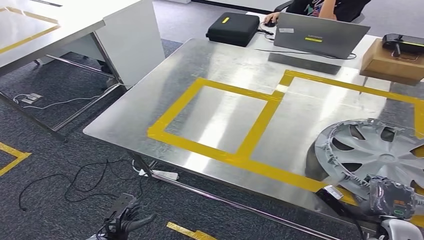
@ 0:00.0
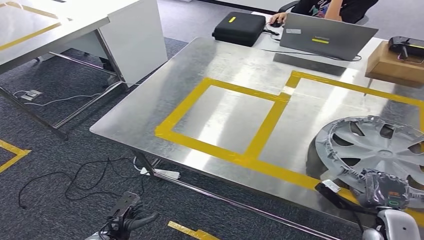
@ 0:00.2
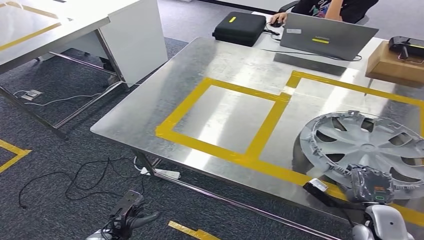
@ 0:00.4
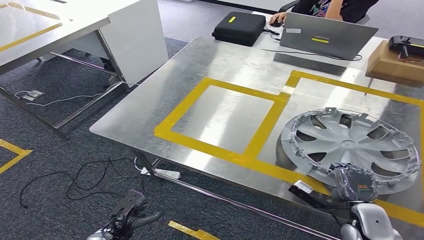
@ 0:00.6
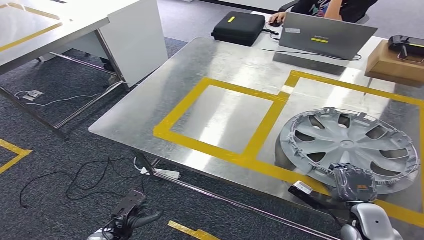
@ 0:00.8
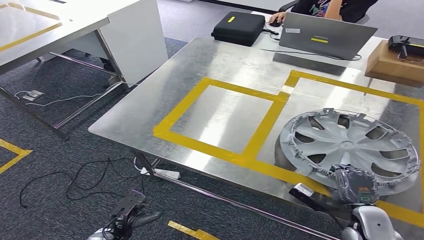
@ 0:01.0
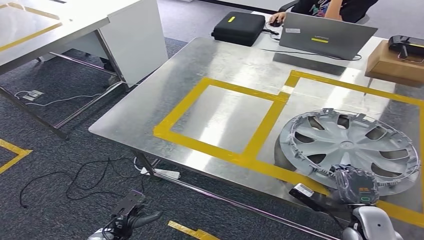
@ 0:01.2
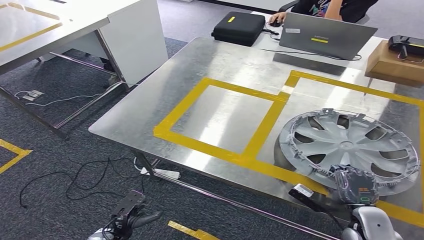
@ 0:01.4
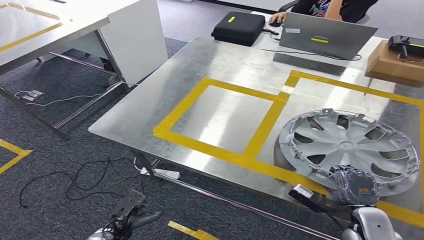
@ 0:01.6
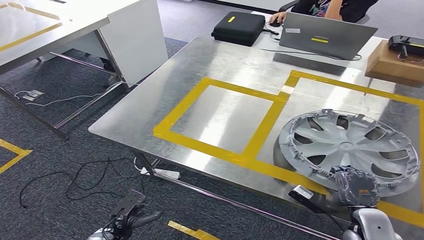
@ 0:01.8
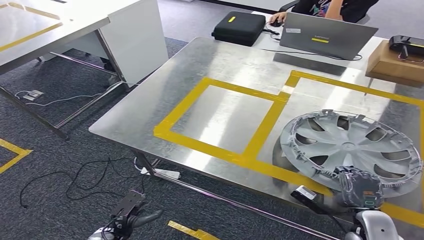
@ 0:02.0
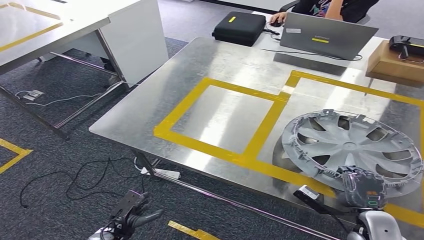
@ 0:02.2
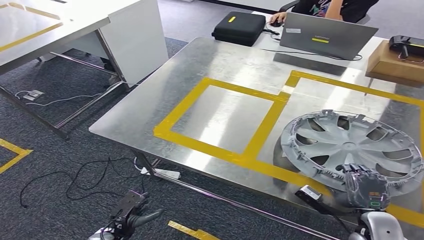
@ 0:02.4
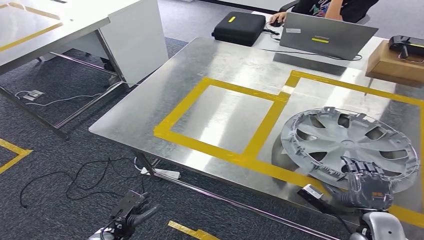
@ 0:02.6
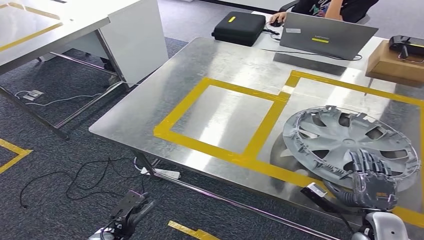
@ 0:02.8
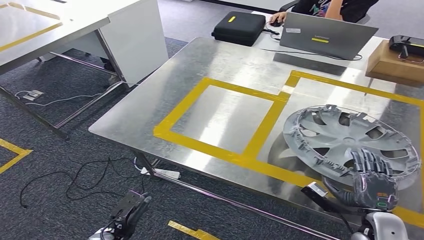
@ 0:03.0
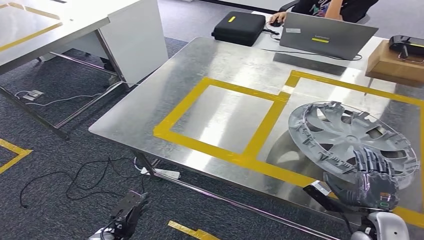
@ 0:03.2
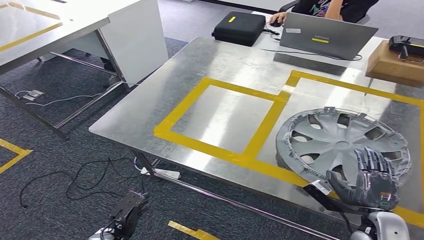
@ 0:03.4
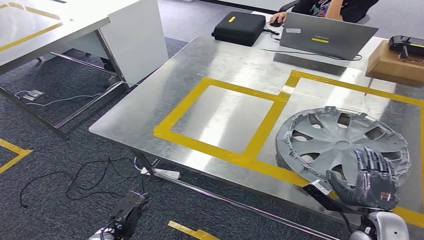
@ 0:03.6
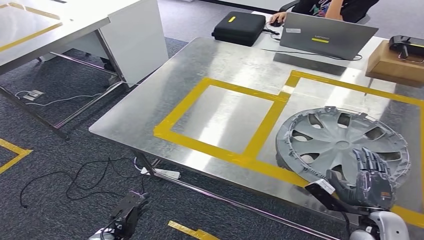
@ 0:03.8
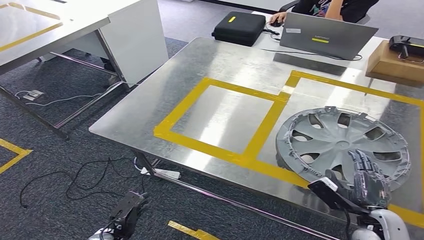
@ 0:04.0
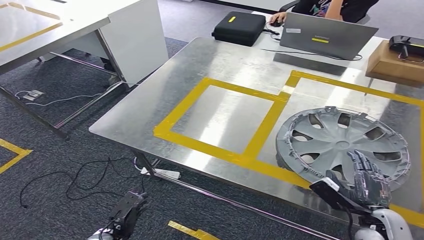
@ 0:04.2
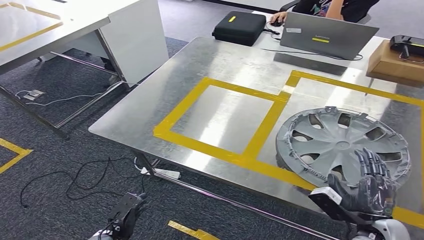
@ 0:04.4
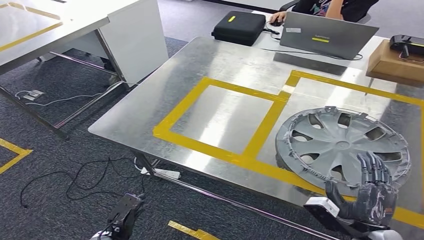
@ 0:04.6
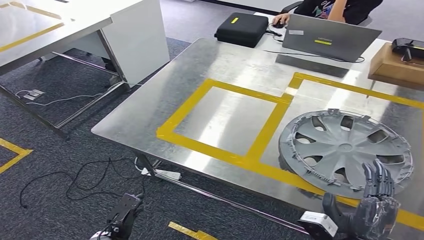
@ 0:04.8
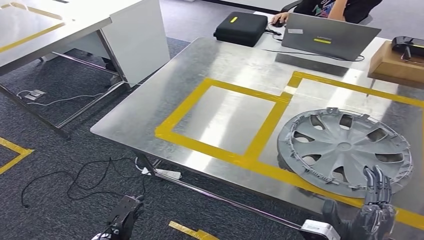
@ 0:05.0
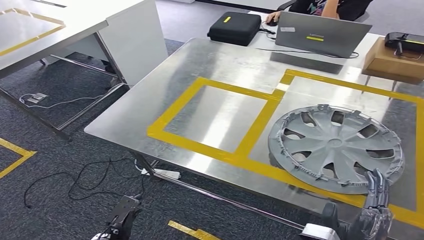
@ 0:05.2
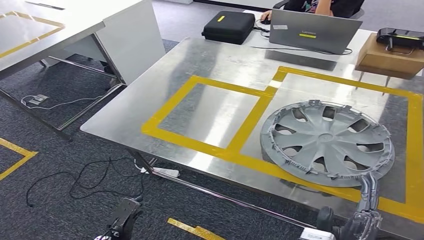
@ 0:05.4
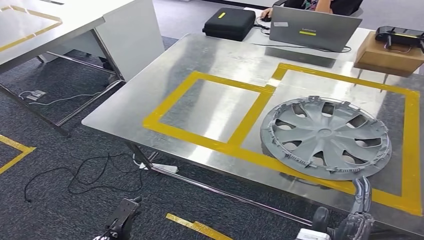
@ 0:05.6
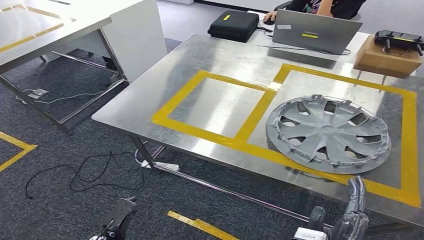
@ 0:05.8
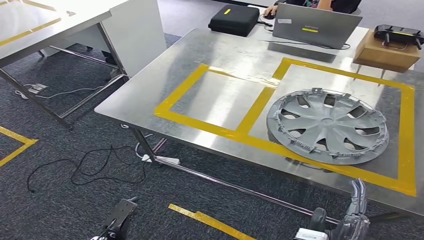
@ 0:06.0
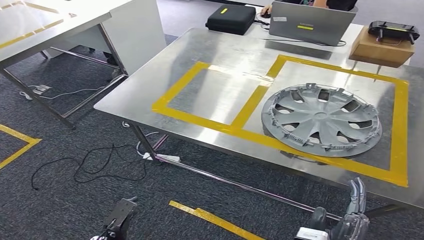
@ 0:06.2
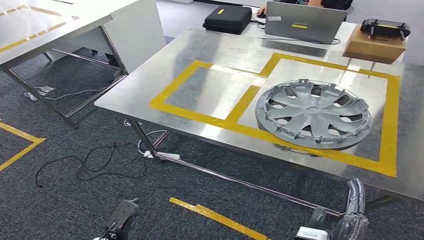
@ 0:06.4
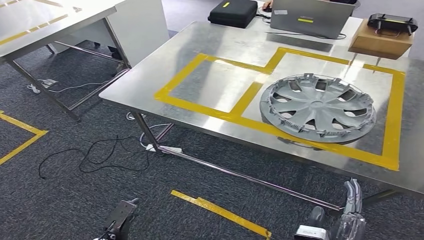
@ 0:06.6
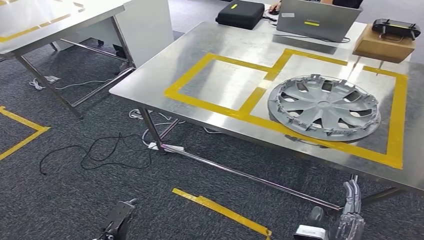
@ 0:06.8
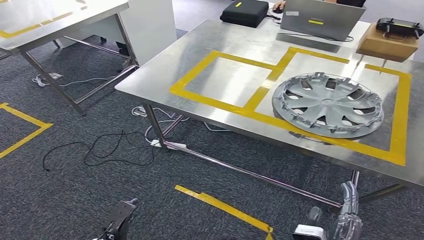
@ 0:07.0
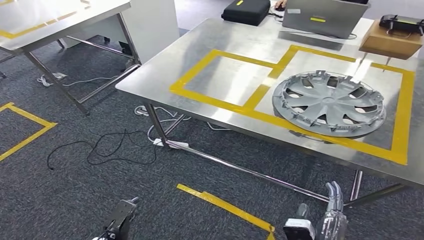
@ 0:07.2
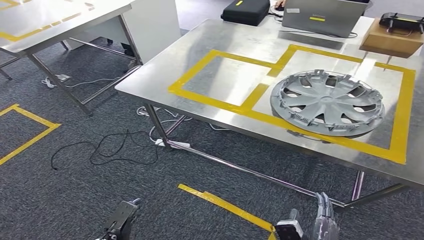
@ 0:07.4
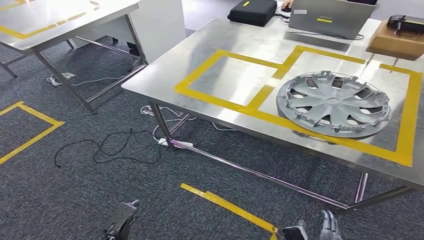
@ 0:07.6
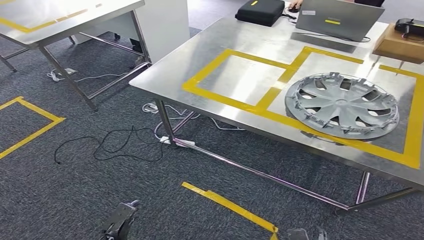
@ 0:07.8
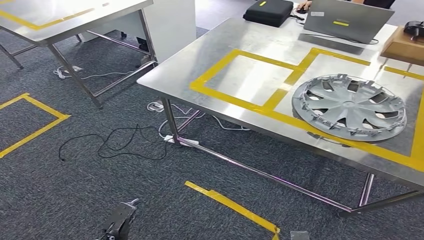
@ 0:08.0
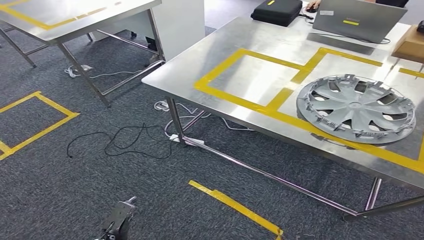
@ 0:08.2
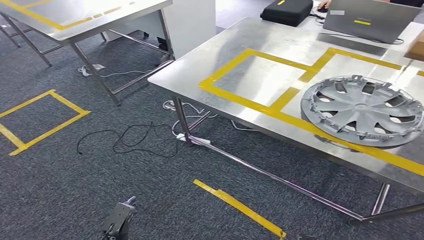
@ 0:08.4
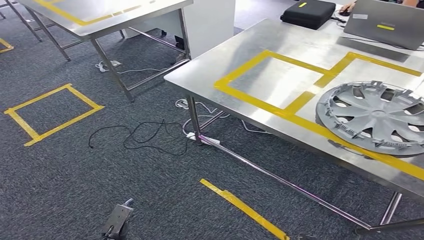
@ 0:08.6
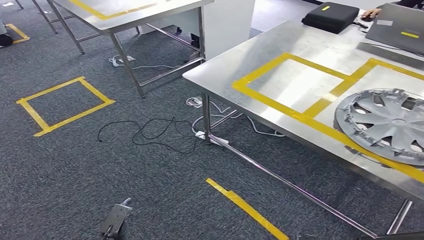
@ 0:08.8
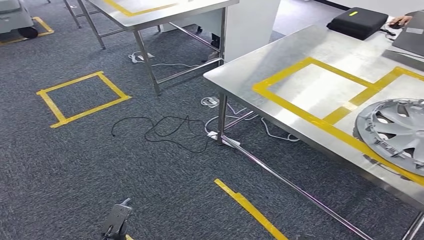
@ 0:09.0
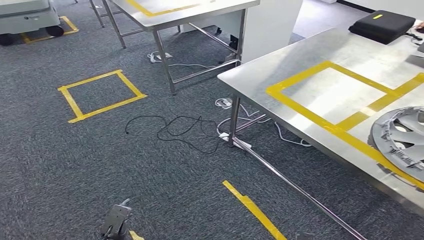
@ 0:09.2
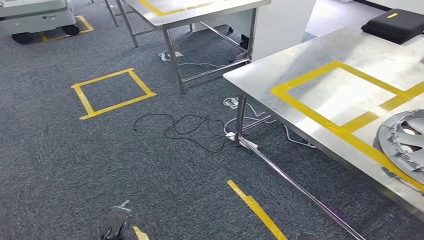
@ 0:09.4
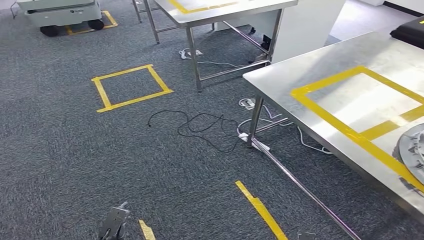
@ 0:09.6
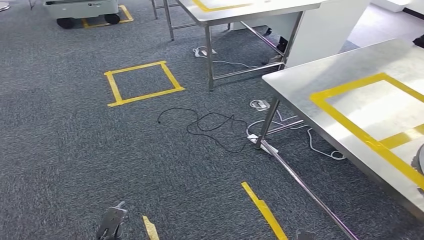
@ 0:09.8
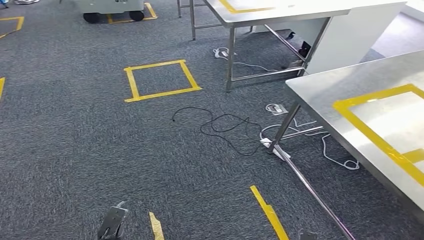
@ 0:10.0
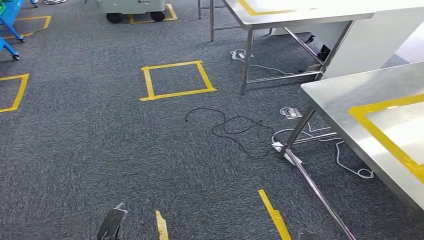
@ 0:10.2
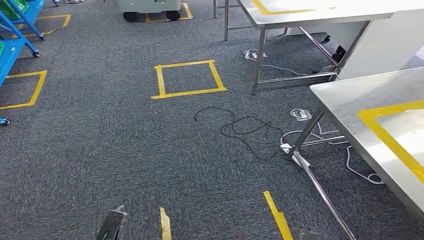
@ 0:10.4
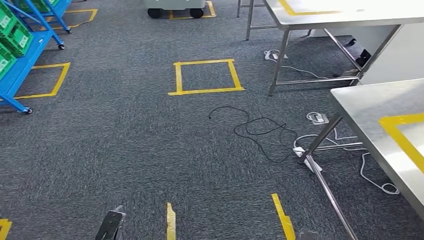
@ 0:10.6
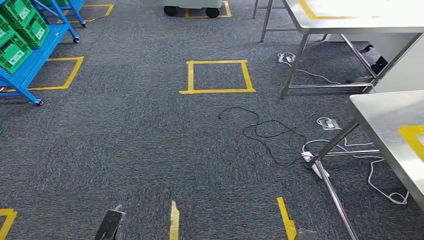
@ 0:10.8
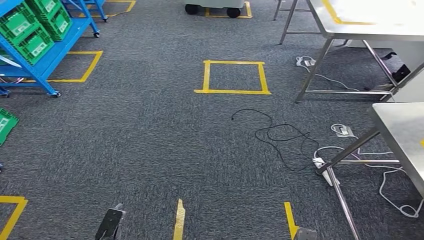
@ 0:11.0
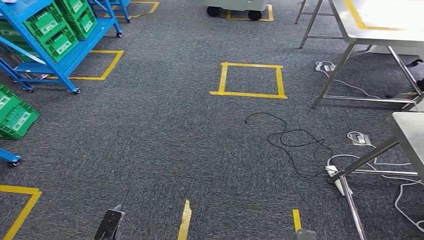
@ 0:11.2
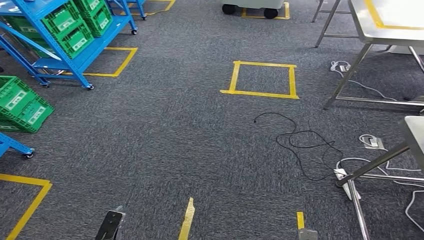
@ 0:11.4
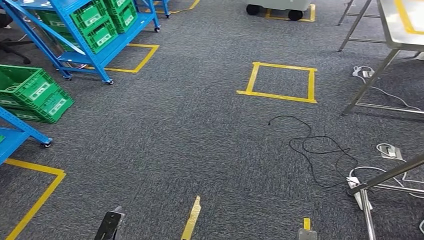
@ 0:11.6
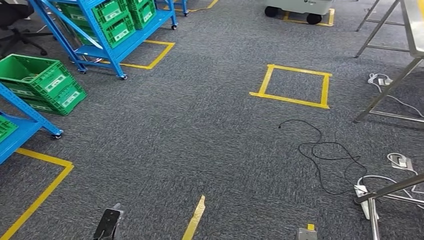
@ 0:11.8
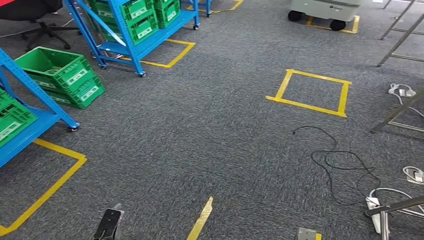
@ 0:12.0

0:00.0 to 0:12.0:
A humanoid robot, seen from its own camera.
Step, 0:00.0 to 0:05.0: Insert the small component into the corresponding slot on the workbench.
0:01.6 to 0:03.0: The hands make only small movements.

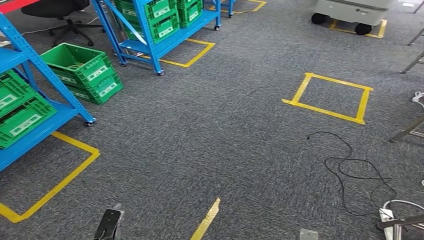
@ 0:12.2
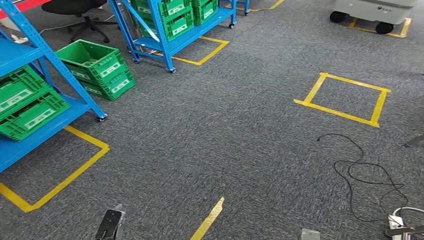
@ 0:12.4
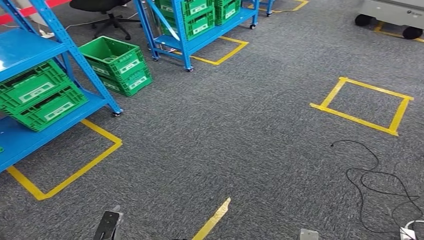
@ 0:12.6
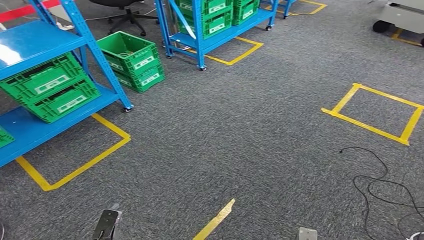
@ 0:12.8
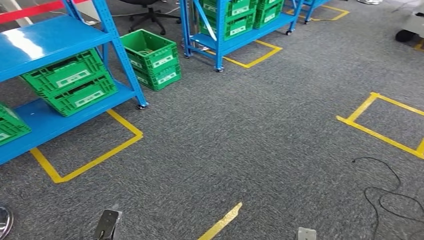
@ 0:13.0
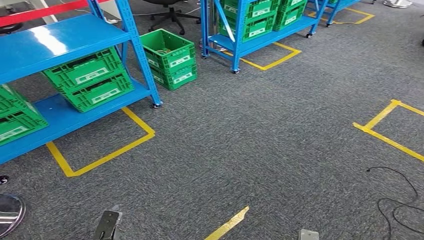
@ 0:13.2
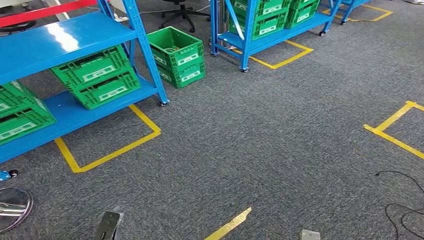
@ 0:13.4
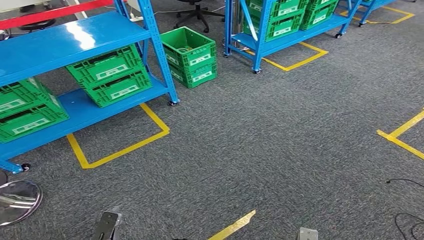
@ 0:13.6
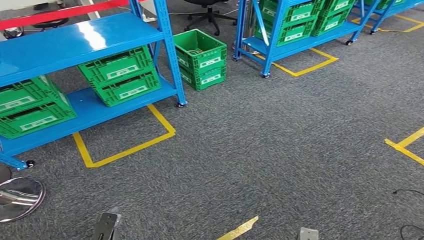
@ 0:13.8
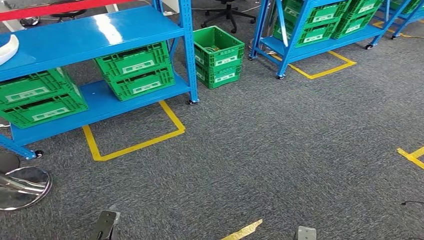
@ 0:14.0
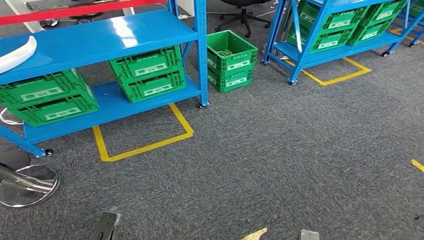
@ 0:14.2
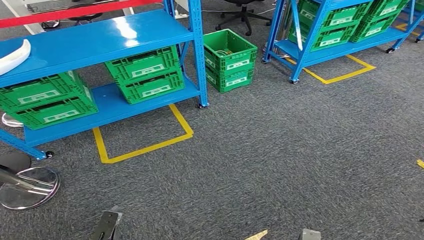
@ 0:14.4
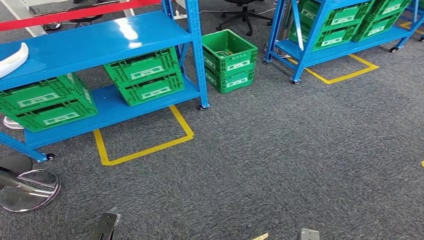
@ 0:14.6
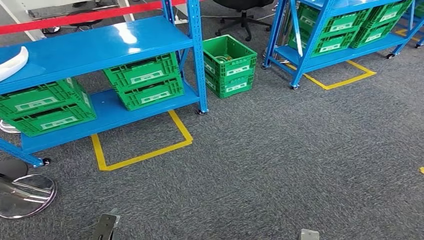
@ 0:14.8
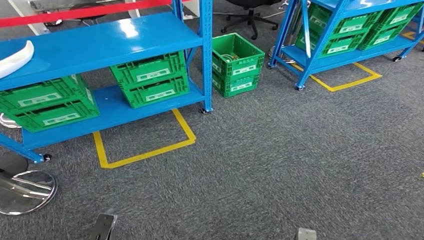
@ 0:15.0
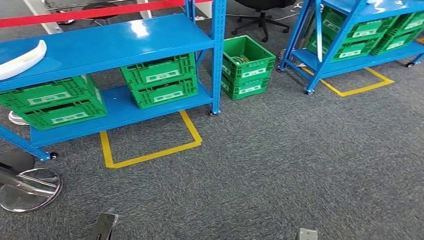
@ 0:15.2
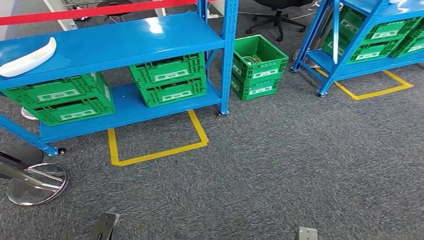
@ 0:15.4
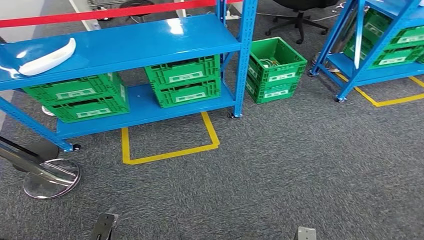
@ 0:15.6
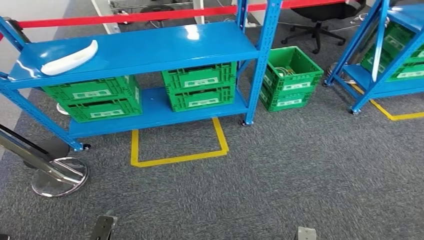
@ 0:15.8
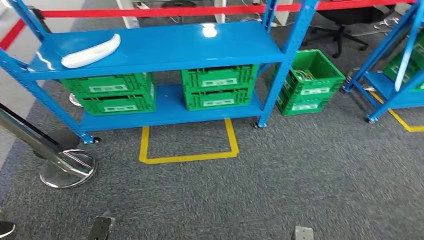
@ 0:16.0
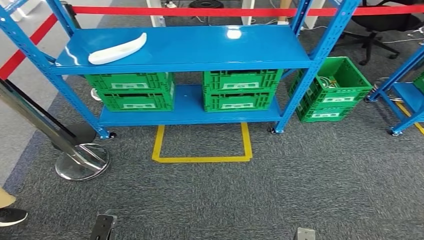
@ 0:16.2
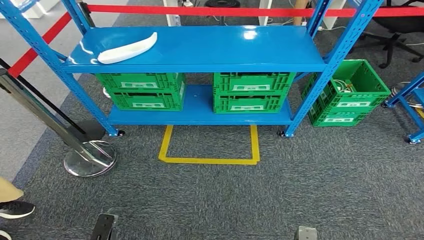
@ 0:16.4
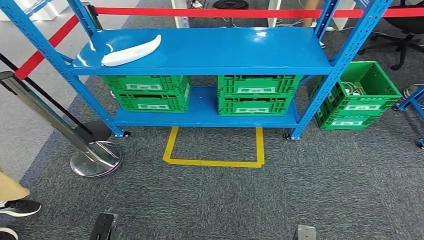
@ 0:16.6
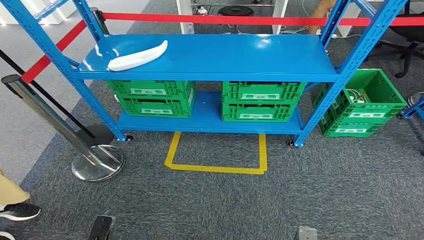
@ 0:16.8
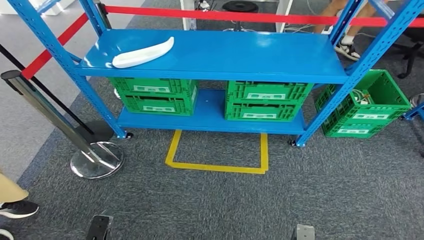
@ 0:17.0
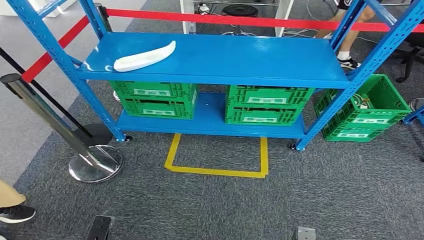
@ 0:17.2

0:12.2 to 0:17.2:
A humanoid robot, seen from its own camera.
Step, 0:12.2 to 0:17.0: Return to the initial position at the workbench.
